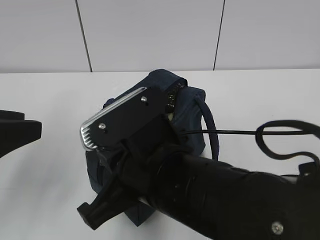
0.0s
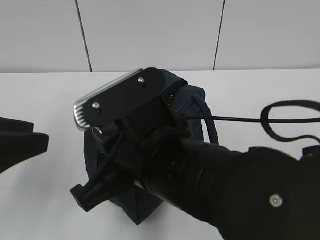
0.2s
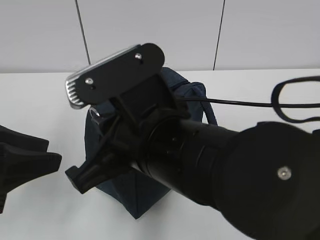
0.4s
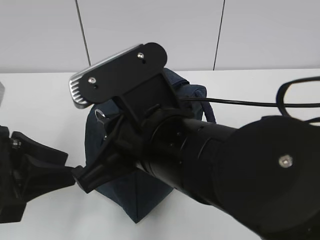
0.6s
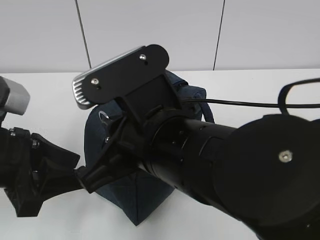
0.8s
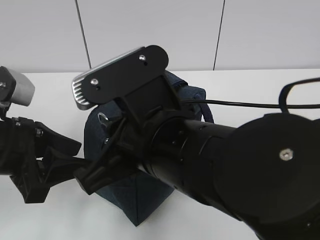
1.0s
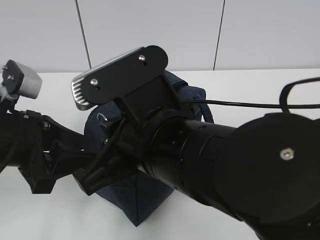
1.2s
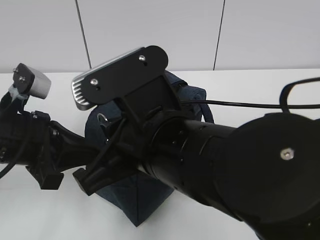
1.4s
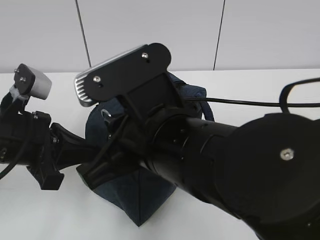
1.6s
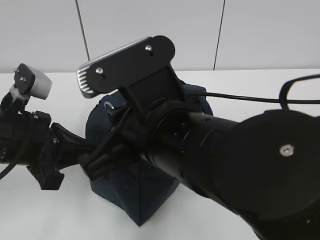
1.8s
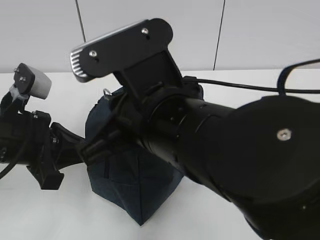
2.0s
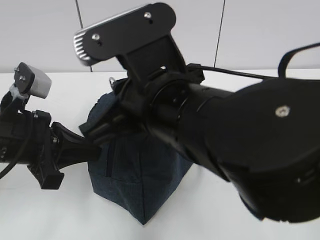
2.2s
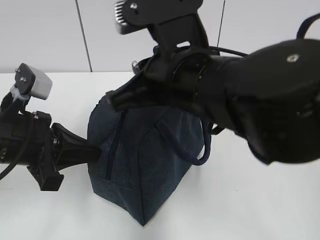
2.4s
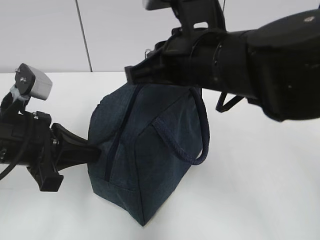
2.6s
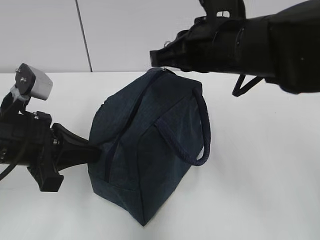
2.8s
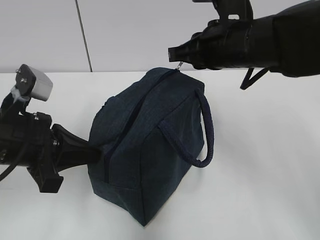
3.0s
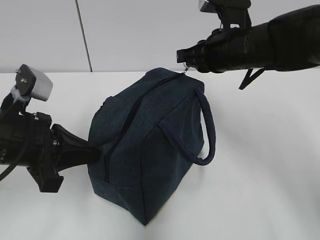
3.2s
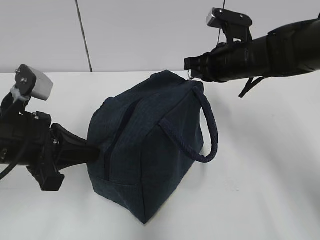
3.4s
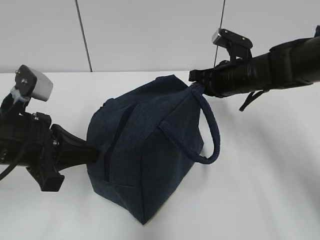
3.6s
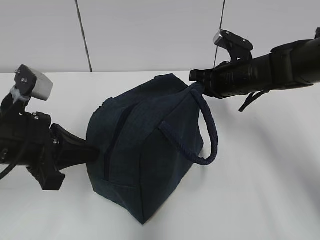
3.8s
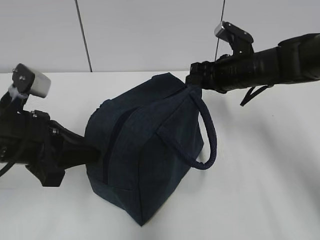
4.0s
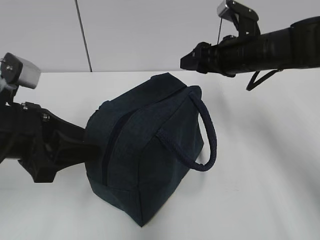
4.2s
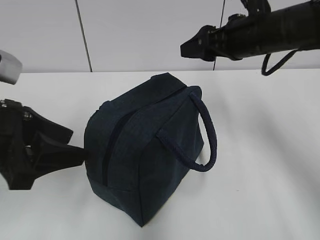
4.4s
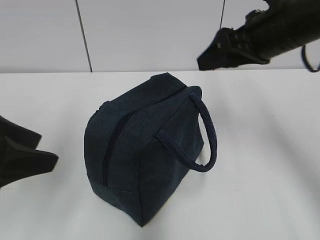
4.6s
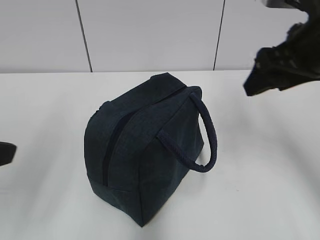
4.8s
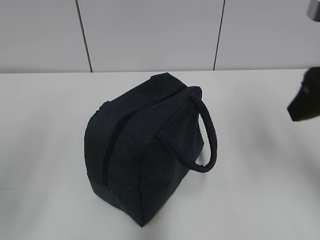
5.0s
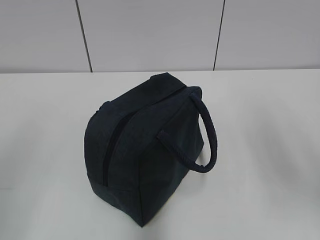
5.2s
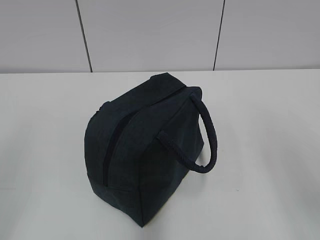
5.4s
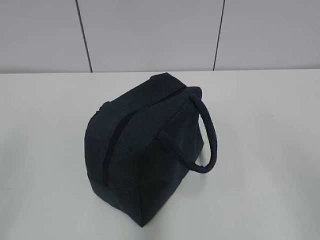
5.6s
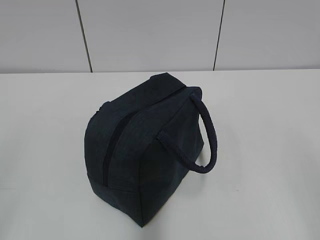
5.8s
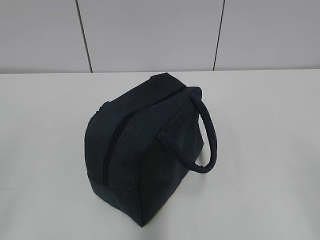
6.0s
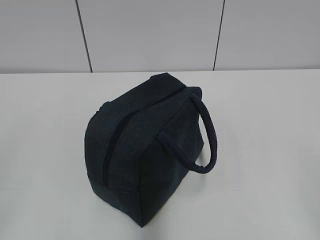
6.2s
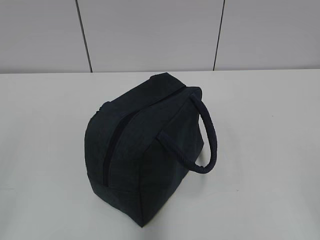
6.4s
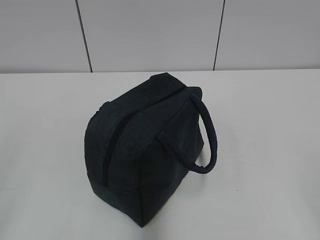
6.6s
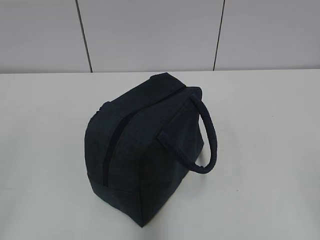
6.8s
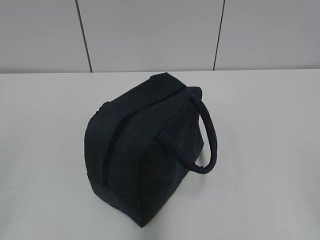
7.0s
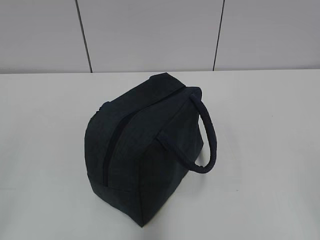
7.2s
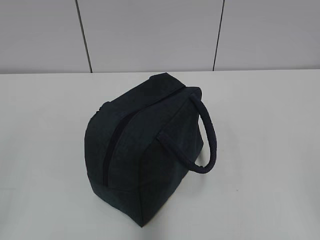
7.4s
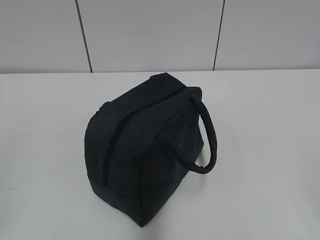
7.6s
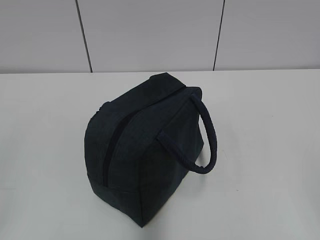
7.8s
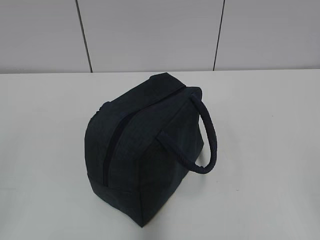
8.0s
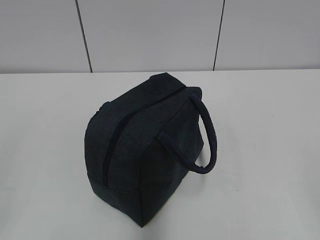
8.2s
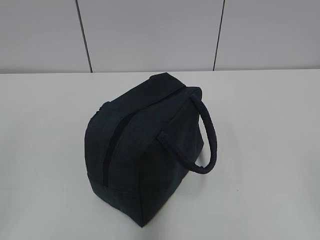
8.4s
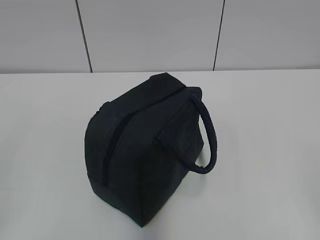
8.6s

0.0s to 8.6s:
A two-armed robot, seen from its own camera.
Step, 0.0s to 3.4s: Pull the zipper with your right hand.
Step, 3.8s to 4.0s: Grab the lunch bag with your left hand.
0.0s to 1.4s: The left gripper moves forward and downward, approximately 10 cm, and closes.
1.4s to 2.8s: The right gripper is displaced forward and to the right by some 15 cm.
2.8s to 4.4s: The right gripper is displaced to the right and forward by some 10 cm, travels downward and back again, roughly 10 cm each way, and opens up; the left gripper moves approximately 5 cm, and opens up.
4.4s to 5.8s: The right gripper shifts approximately 35 cm backward. The left gripper travels backward and to the left by about 20 cm.

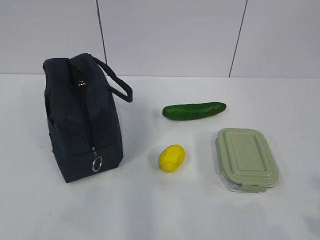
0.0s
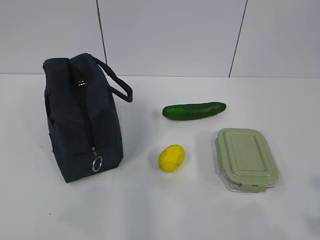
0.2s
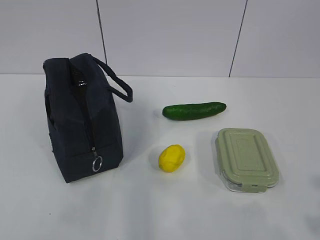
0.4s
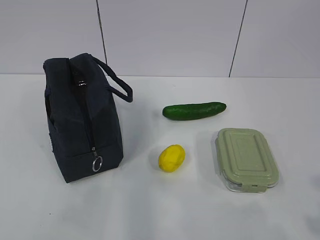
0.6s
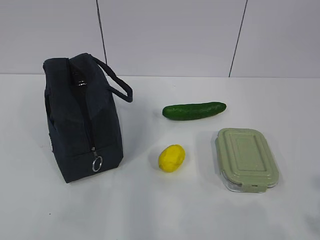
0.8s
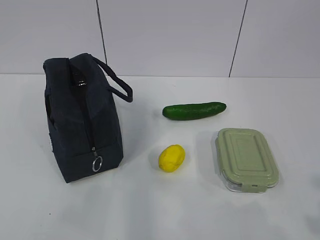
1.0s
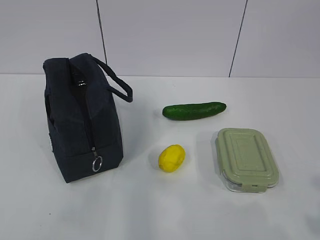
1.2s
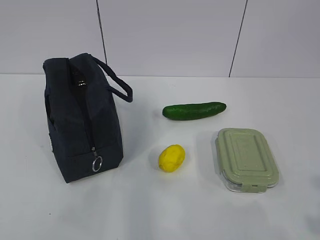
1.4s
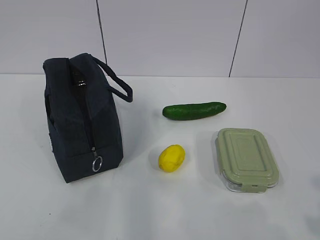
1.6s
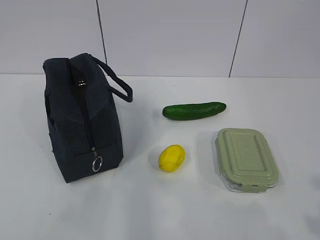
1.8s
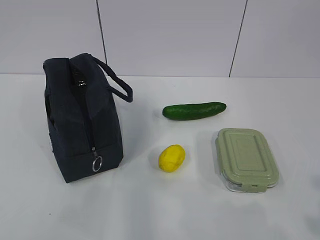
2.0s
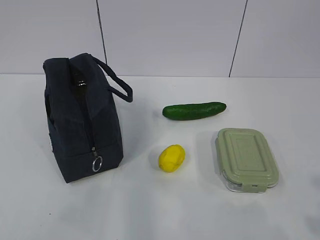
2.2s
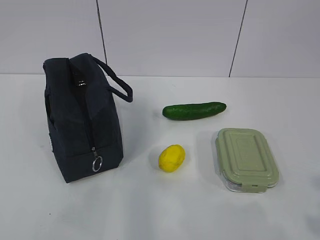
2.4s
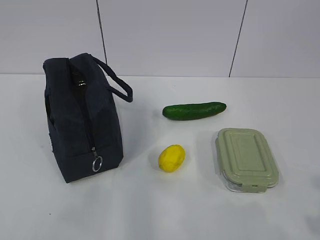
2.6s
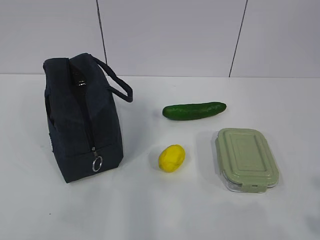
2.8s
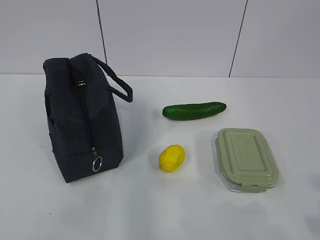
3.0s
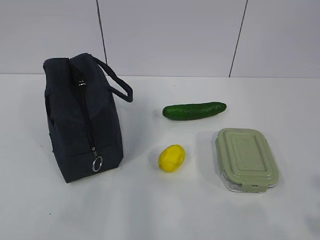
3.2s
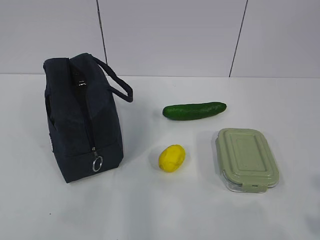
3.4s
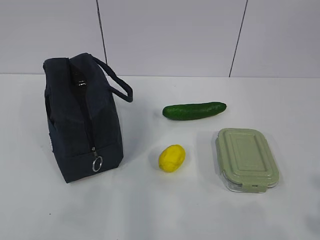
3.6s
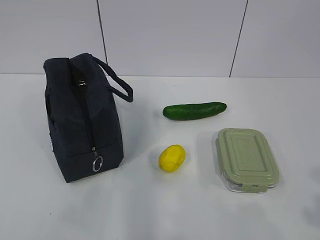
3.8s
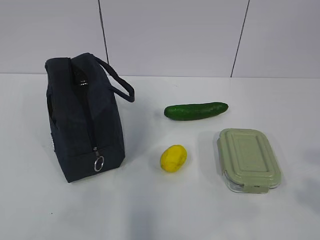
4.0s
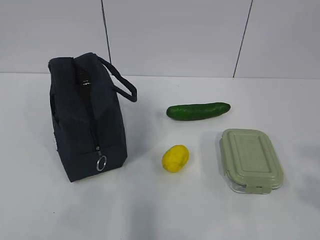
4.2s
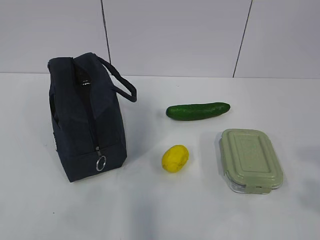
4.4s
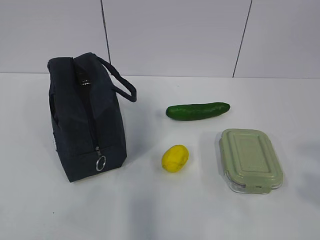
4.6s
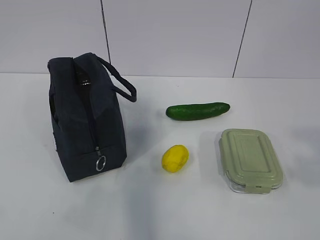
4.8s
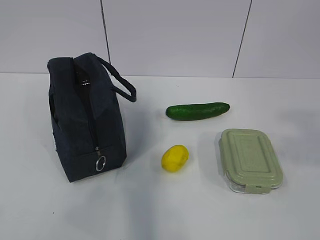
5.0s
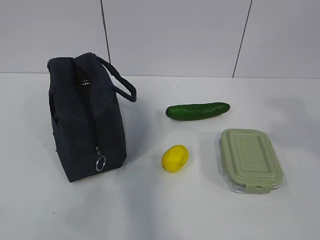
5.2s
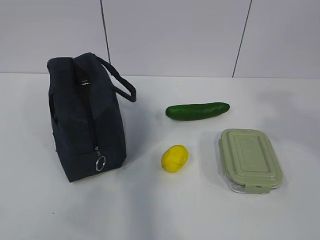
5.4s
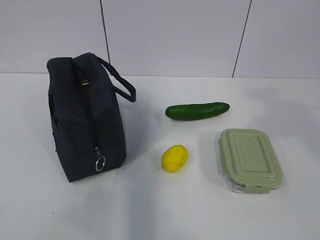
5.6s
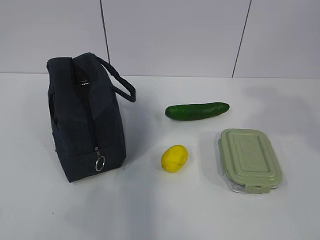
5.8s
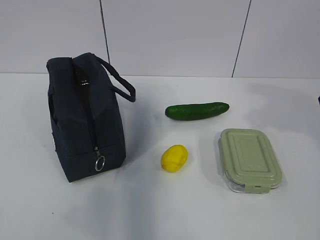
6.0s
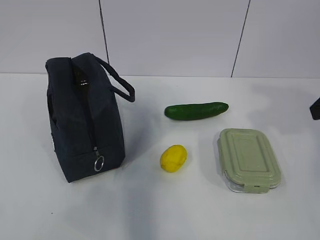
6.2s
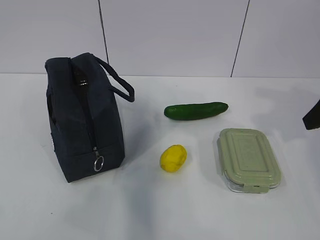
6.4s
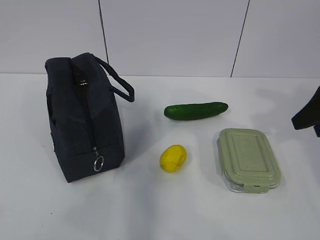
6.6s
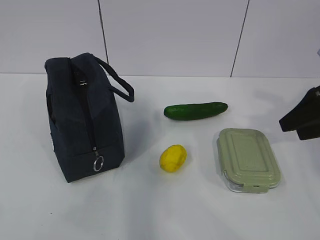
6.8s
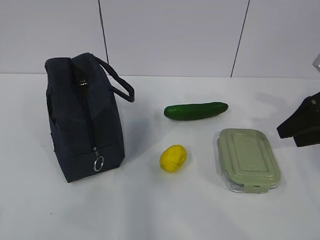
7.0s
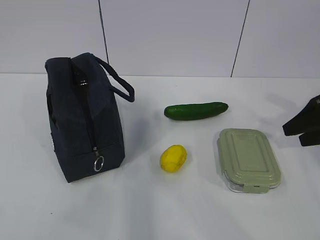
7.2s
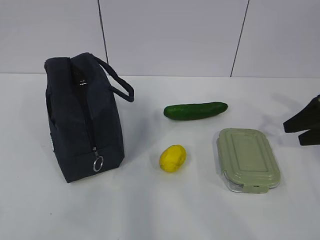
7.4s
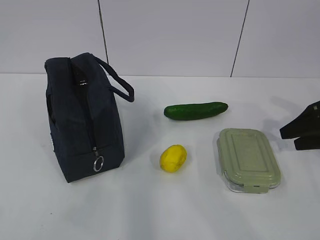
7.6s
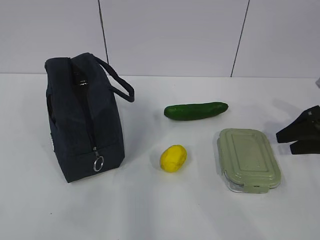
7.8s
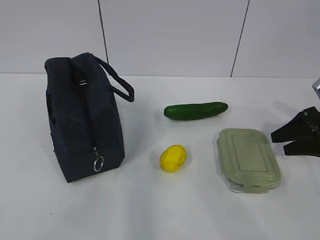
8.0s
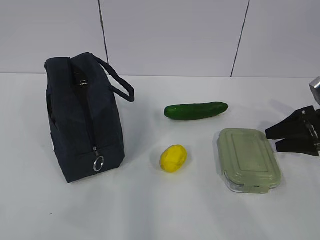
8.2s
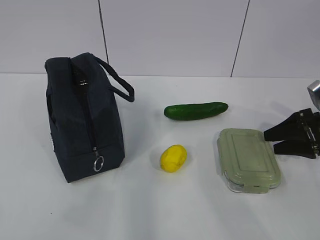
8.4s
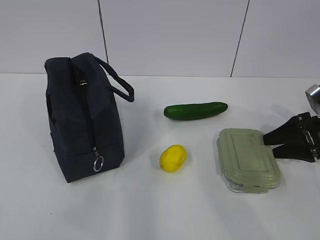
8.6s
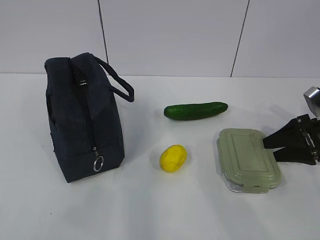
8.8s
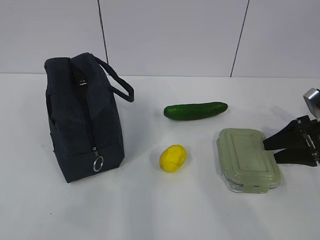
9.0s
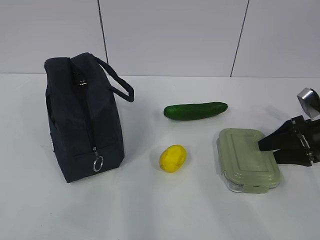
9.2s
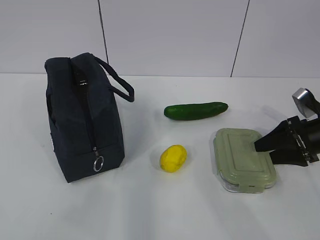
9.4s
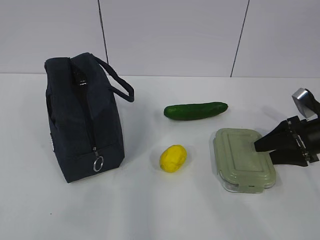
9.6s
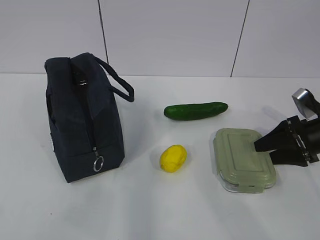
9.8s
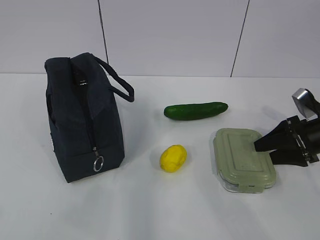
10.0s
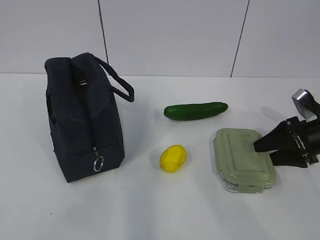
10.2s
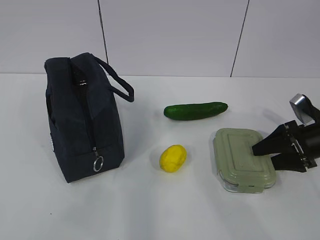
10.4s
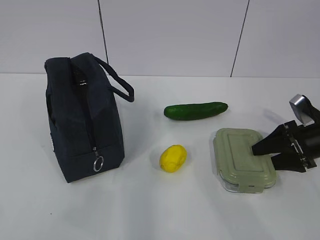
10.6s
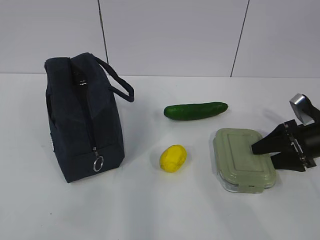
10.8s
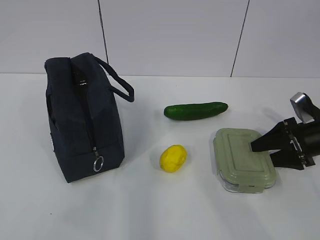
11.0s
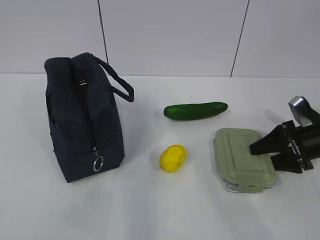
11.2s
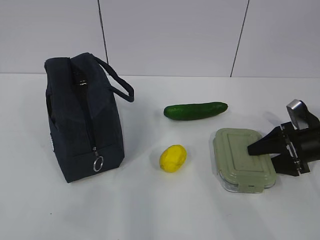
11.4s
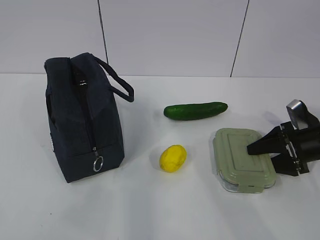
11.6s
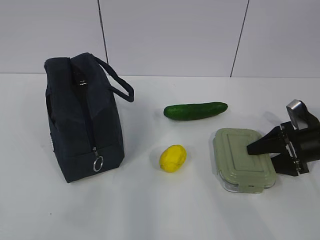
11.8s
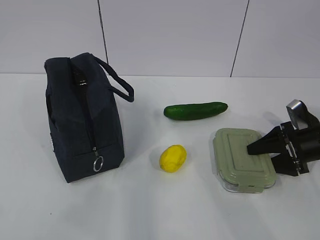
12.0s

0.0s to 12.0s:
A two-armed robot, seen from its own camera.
1.6s to 3.0s: Neither gripper changes place.
3.0s to 4.4s: The right gripper shifts some 5 cm upward.
4.4s to 6.0s: The right gripper is displaced forward by some 20 cm.
6.0s to 7.6s: The right gripper heads downward, forward and to the right, covering some 20 cm.
7.6s to 9.0s: The right gripper goes some 5 cm downward.
9.0s to 12.0s: The grippers move only a little.

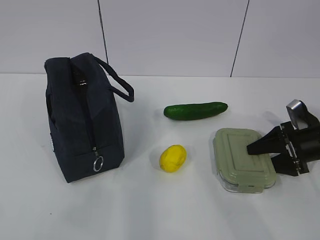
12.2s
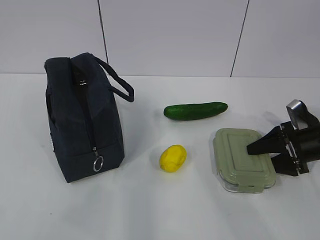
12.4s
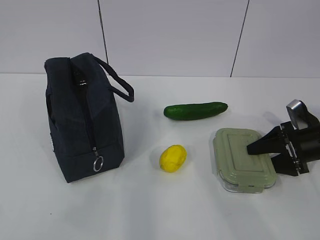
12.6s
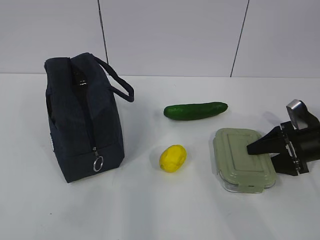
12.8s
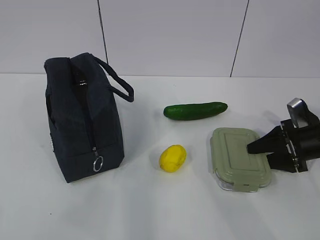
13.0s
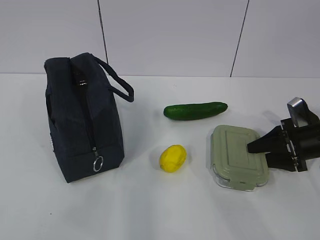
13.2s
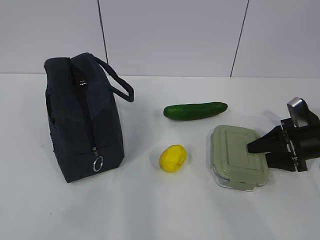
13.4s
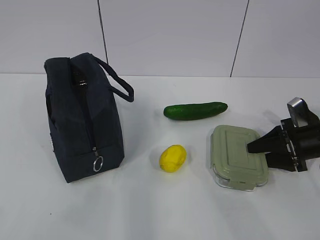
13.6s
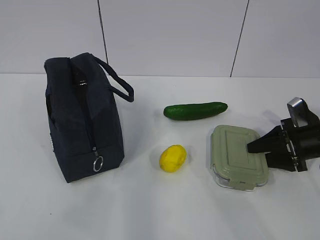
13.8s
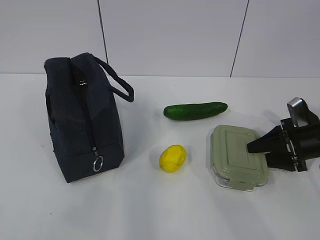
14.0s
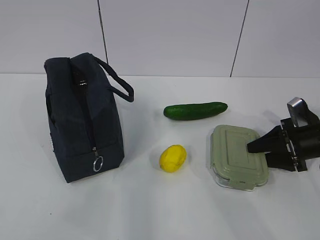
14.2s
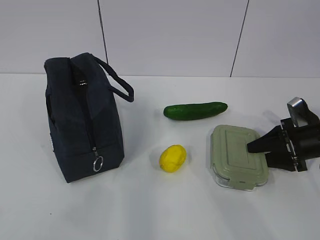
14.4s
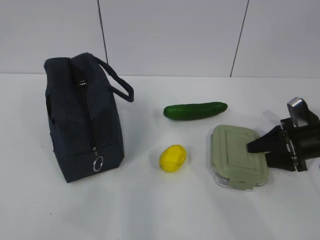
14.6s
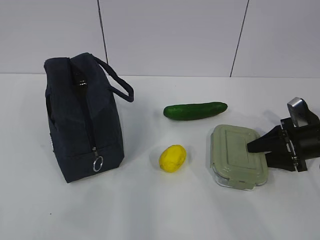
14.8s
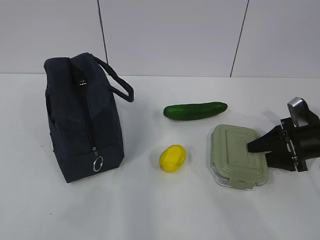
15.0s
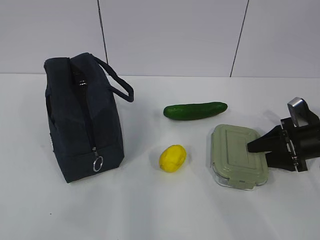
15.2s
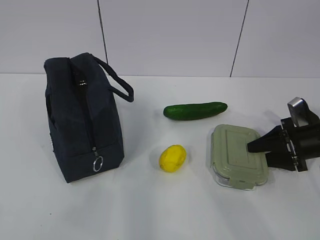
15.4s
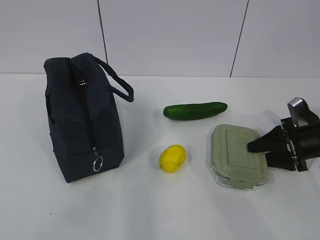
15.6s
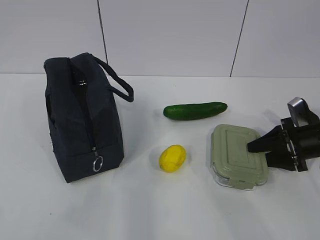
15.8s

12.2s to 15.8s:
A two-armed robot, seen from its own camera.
12.2s to 15.8s: Both grippers stay about where they are.
